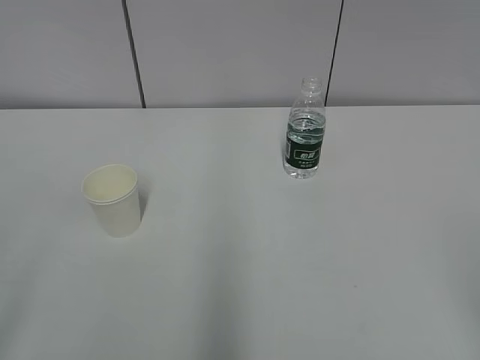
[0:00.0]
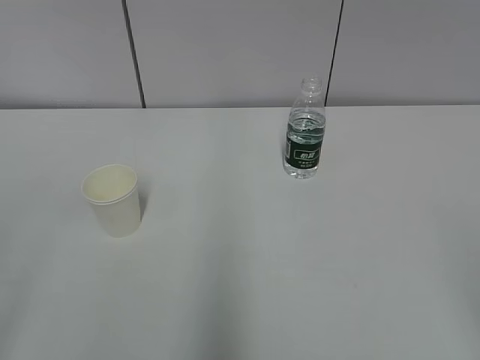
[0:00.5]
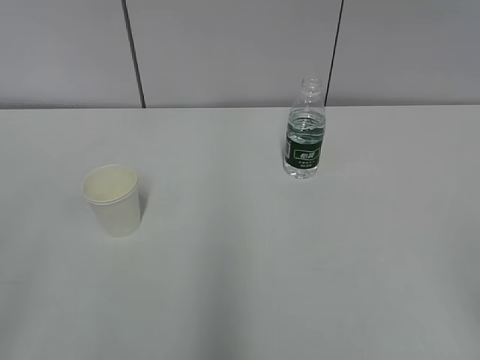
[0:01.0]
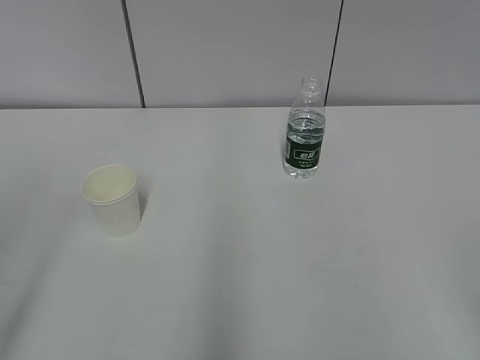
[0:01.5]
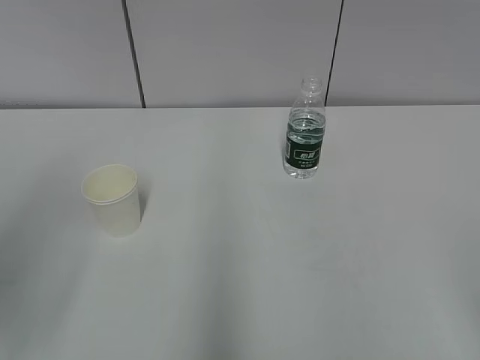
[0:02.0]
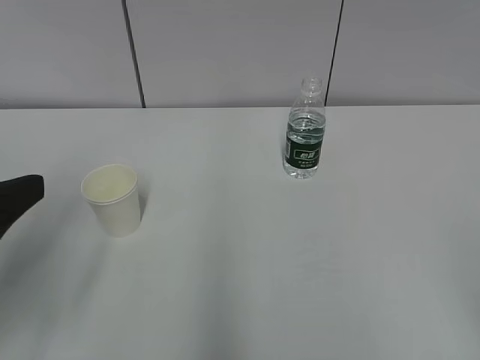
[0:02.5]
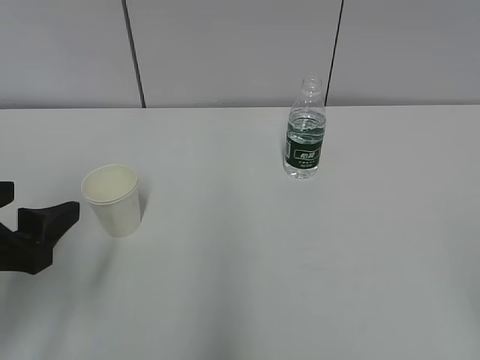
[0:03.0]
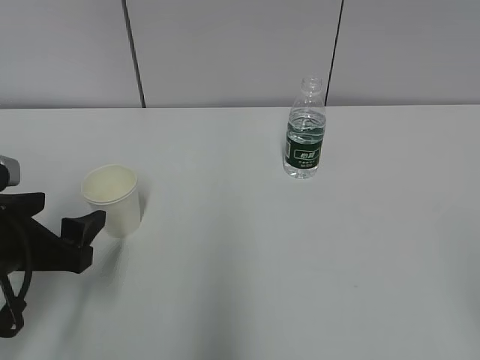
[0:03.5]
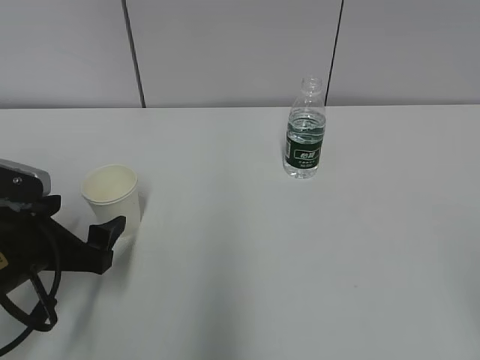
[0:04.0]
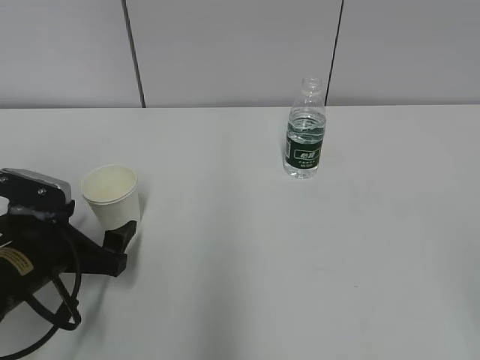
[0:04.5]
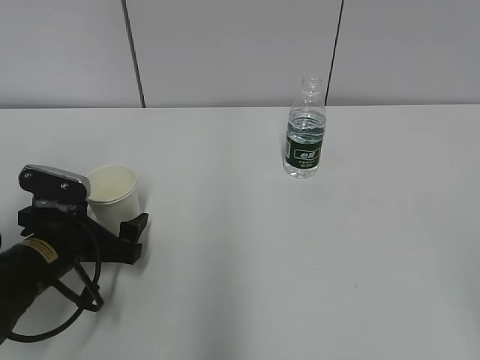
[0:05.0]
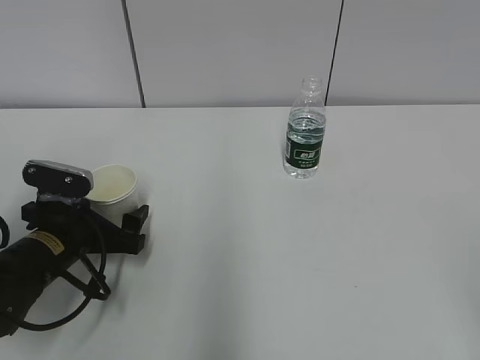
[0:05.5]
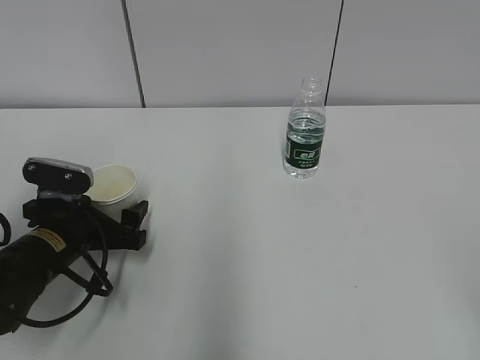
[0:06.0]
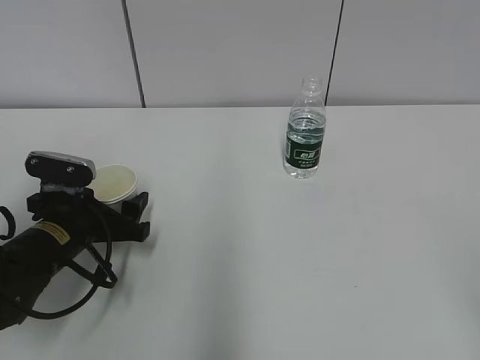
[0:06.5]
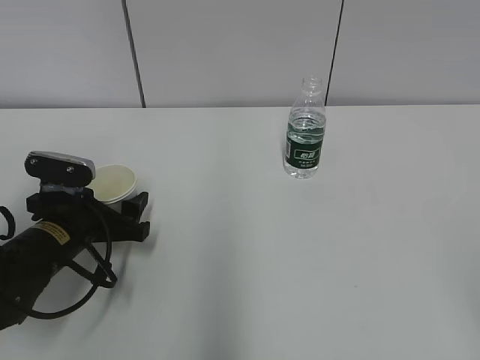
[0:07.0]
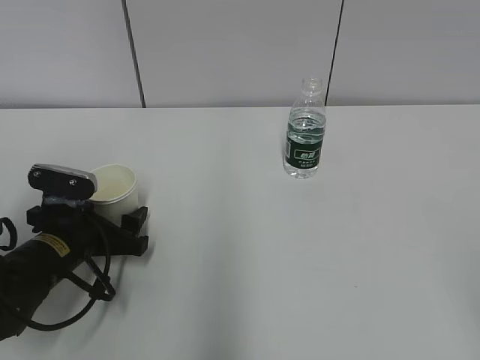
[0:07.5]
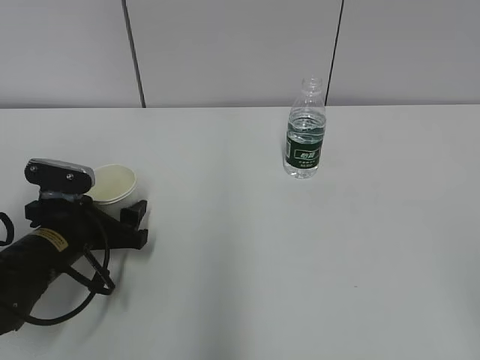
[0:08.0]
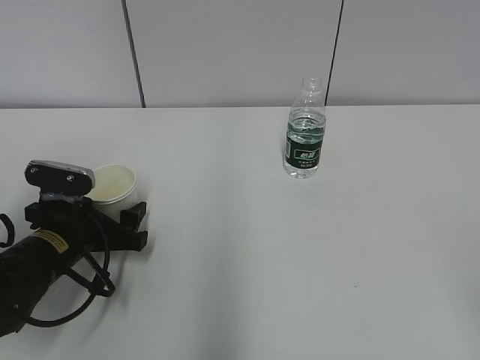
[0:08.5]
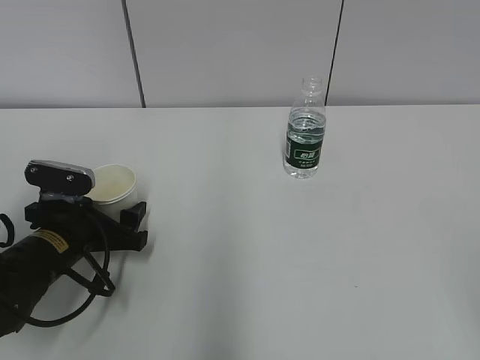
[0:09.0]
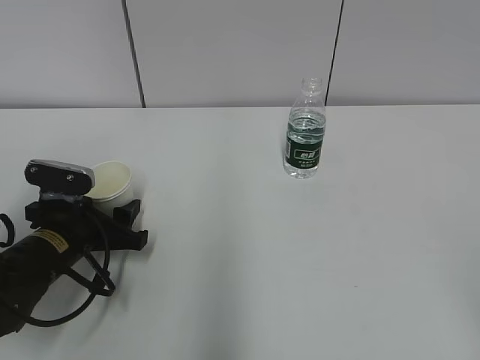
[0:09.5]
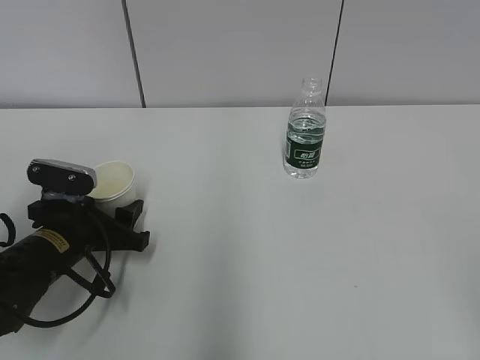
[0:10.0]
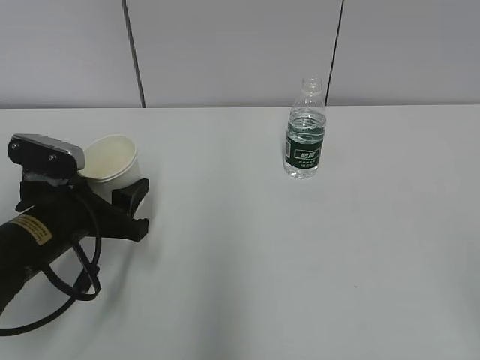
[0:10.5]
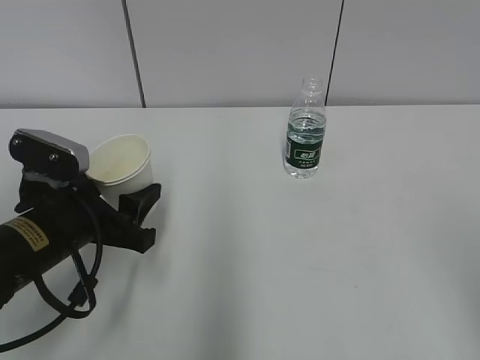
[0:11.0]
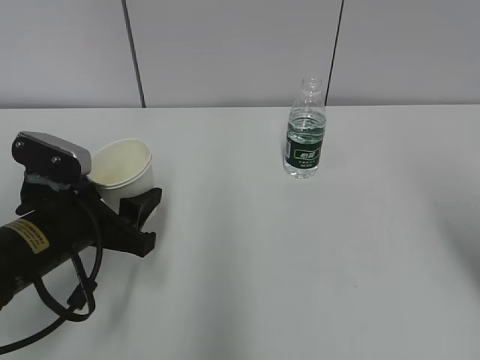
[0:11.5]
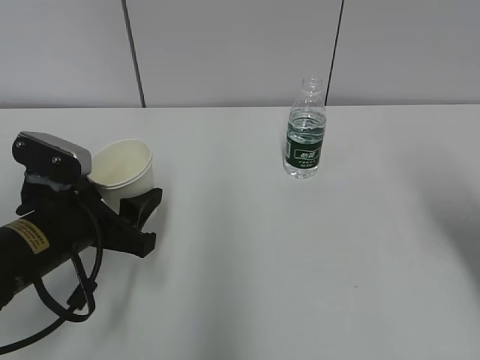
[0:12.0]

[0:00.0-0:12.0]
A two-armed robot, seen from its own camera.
Step, 0.0 to 7.5 s: Grab the paper cup with the left hand.
2.0 to 4.0 s: The left gripper shifts some 25 cm downward and forward, and opens its fingers.
4.0 to 6.0 s: The left gripper goes roughly 5 cm forward.
6.0 to 8.0 s: The grippers make only small movements.
8.0 to 10.0 s: The left gripper closes its fingers.
10.0 to 12.0 s: The right gripper travels forward by approximately 25 cm. Meanwhile the left gripper is displaced upward by roughly 5 cm.

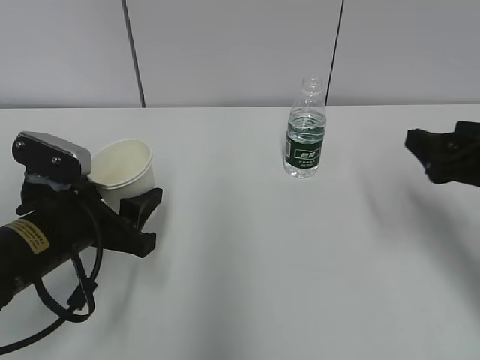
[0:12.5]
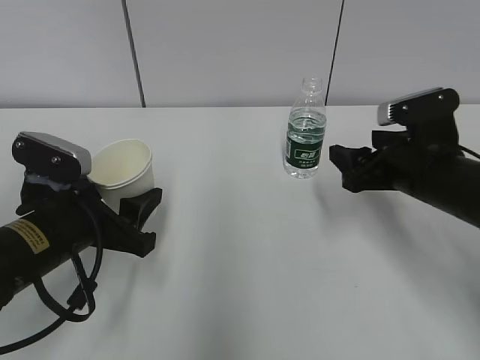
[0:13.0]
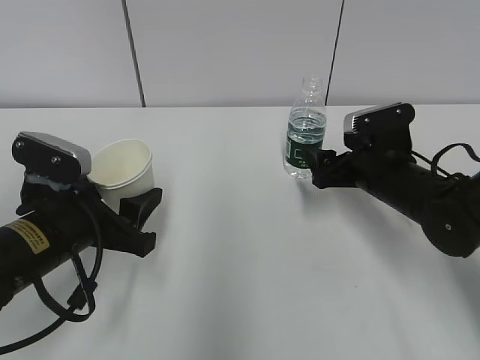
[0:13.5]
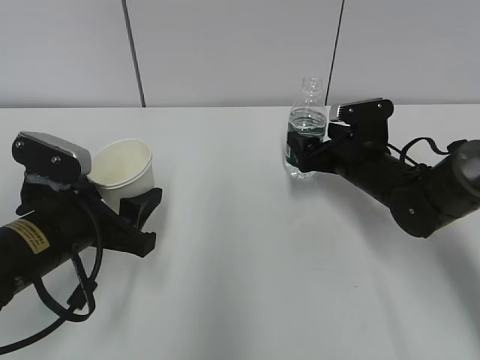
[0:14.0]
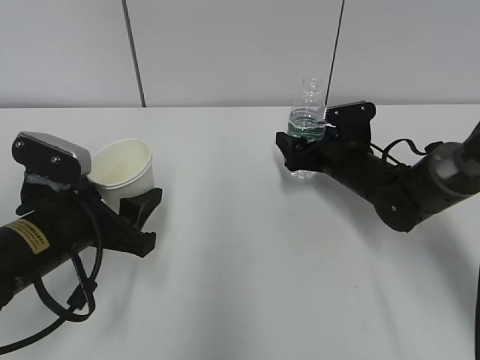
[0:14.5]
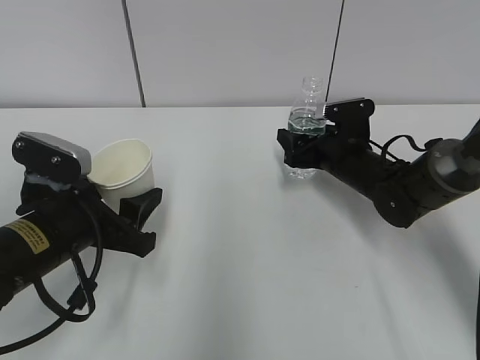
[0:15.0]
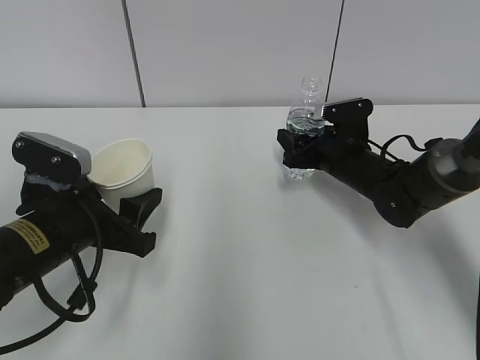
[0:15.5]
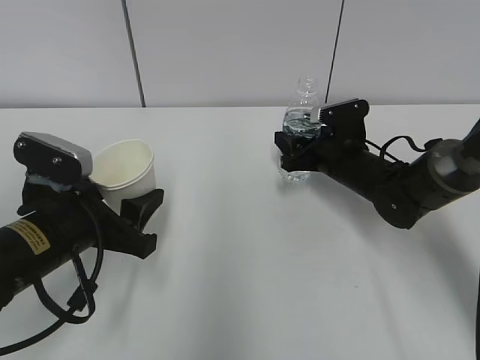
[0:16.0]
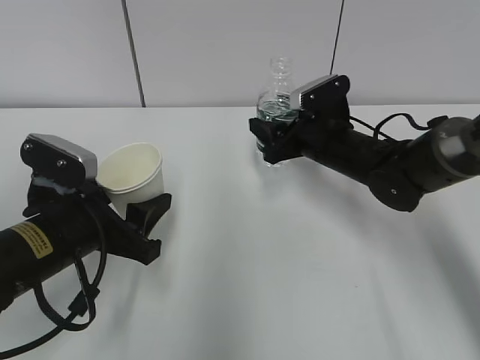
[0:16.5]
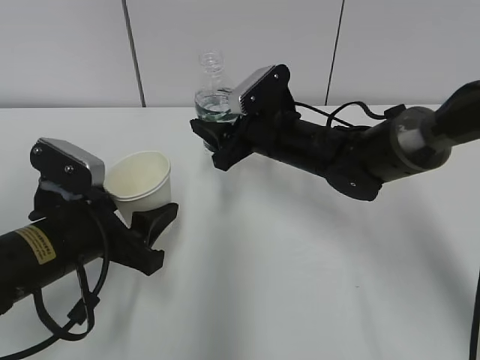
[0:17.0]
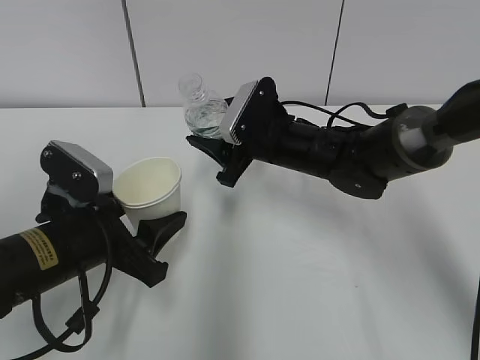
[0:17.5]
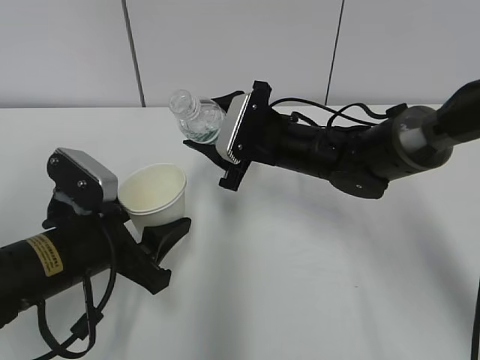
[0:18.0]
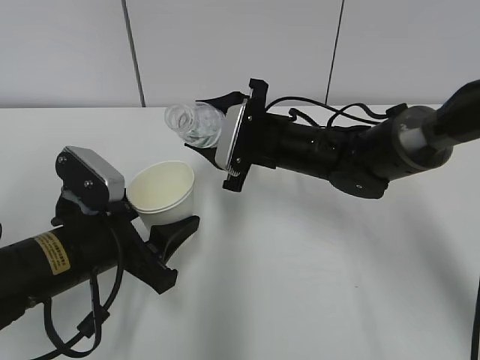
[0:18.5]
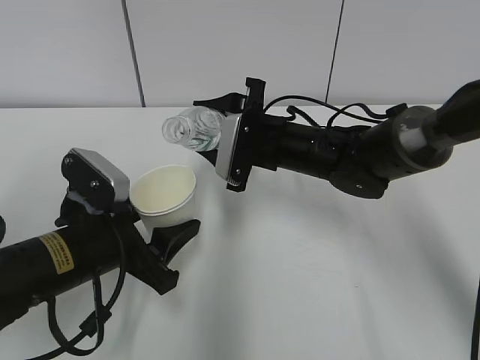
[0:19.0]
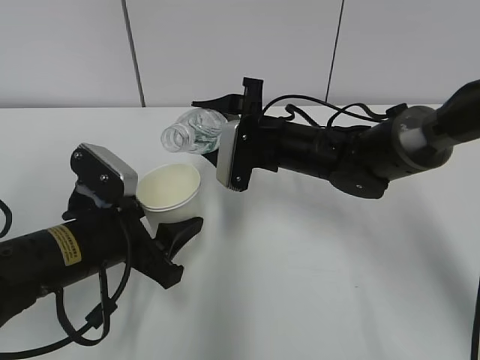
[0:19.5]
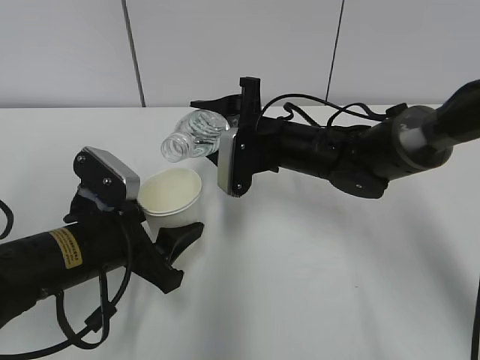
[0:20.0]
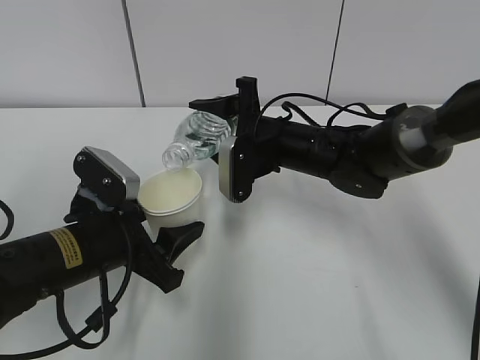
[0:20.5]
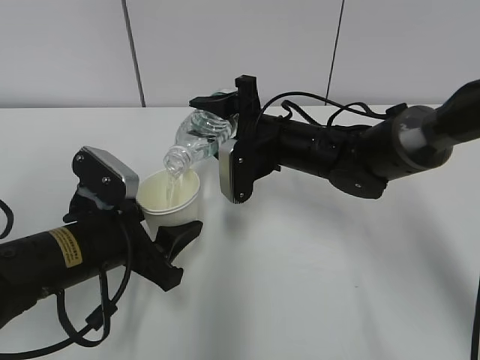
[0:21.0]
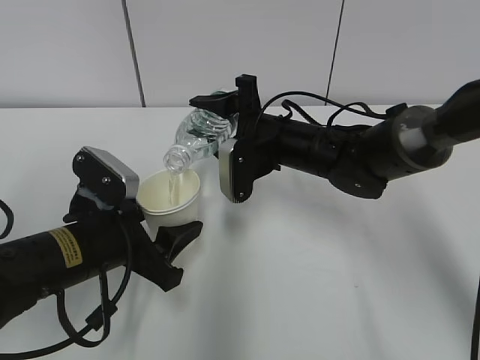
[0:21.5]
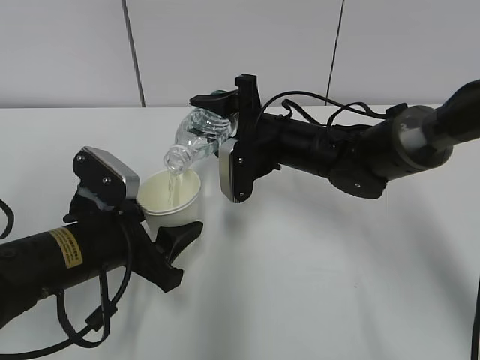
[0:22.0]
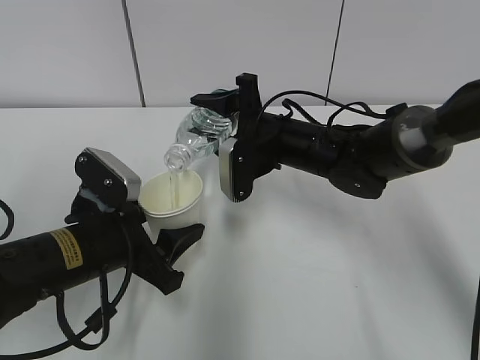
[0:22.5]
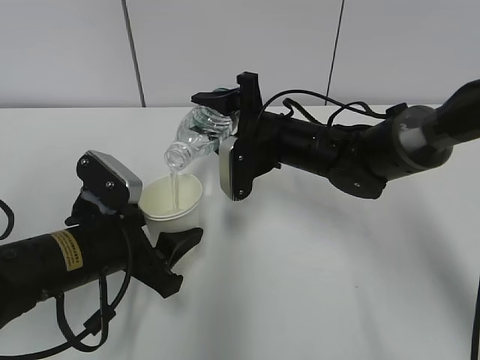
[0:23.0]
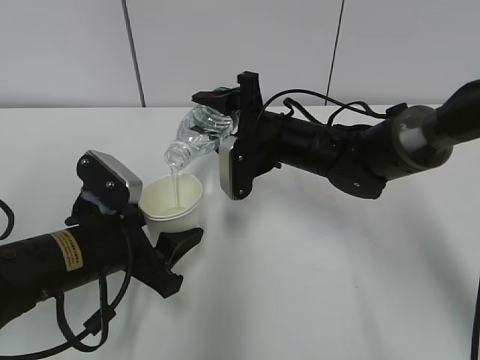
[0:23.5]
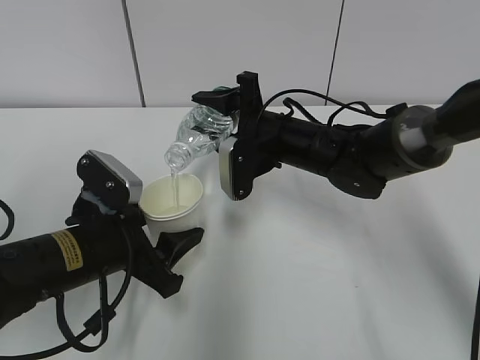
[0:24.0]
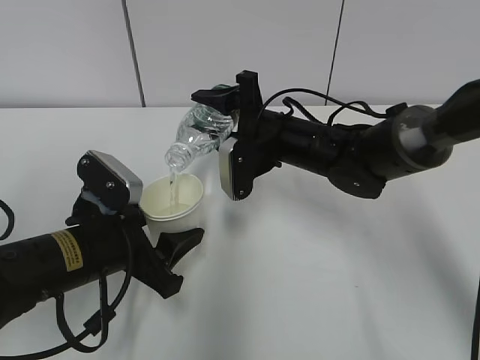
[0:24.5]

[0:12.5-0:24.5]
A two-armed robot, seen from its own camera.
Step, 17.5 to 21.0 s: Fill water with the left hand.
Step, 17.5 to 21.0 s: Pour water with the right hand.
Step, 22.5 to 23.5 s: Place the paper cup with the left hand.
12.5 to 14.5 s: The right gripper goes approximately 25 cm forward, downward and to the left, and opens up.
14.5 to 16.5 s: The right gripper shifts by approximately 5 cm, and closes its fingers.
16.5 to 18.5 s: The right gripper heads to the left, covering about 10 cm.
20.5 to 22.5 s: The grippers make only small movements.
22.5 to 24.5 s: The two grippers keep their place.

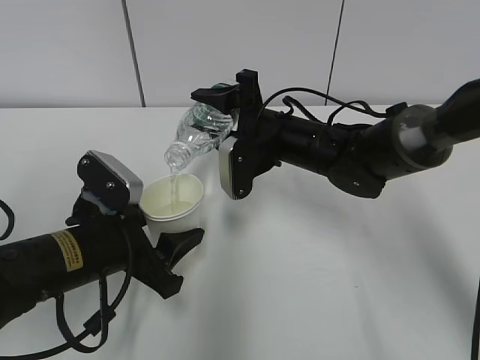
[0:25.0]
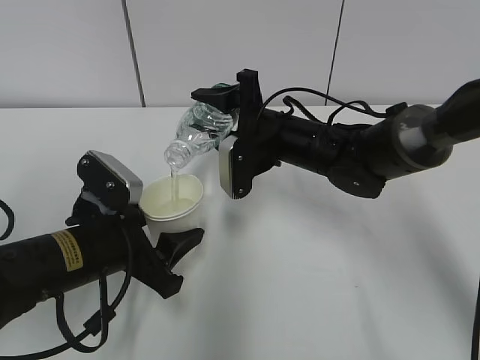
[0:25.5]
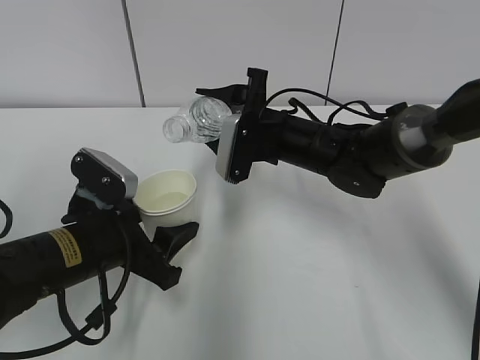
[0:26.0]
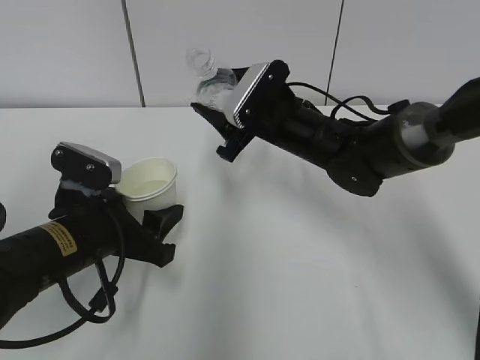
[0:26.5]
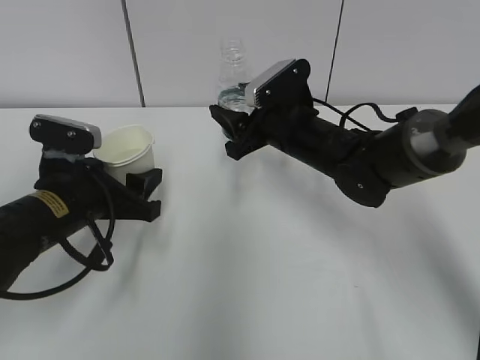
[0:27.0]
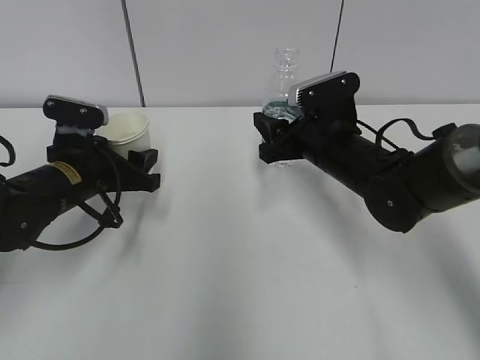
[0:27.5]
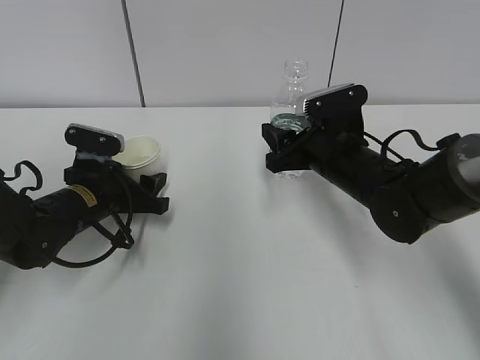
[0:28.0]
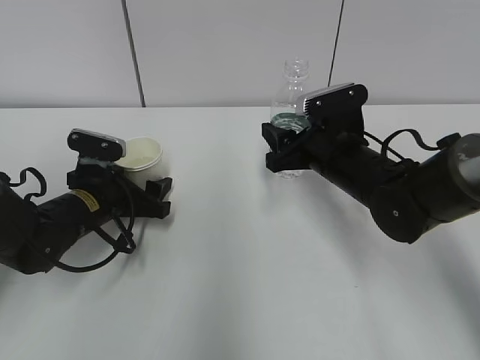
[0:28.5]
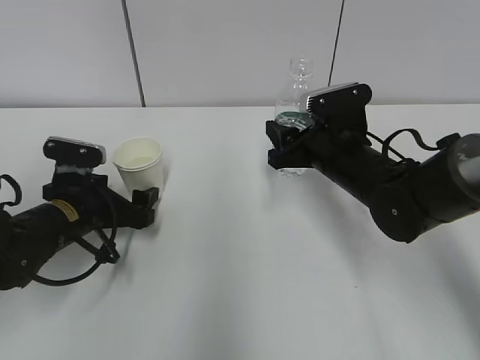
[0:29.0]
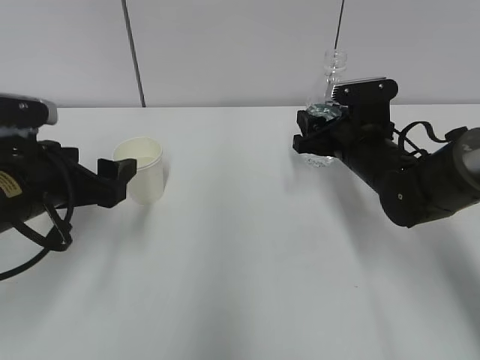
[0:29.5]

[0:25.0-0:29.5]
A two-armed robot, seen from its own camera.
25.0 to 27.0 s: The left gripper shifts by some 5 cm.
27.0 to 29.5 s: The right gripper heads to the right, covering approximately 10 cm; the left gripper travels downward and back again, about 5 cm each way, and opens.
